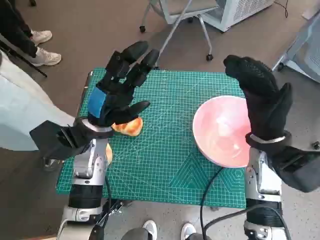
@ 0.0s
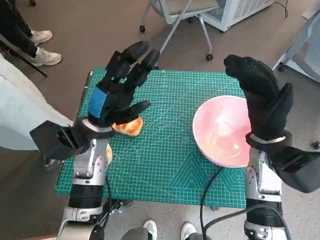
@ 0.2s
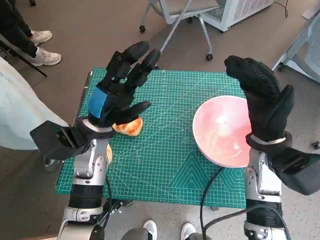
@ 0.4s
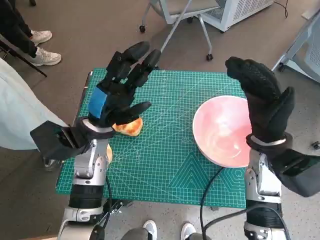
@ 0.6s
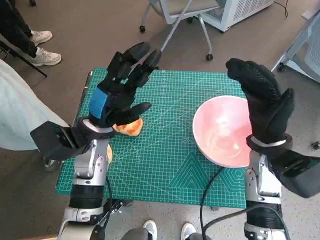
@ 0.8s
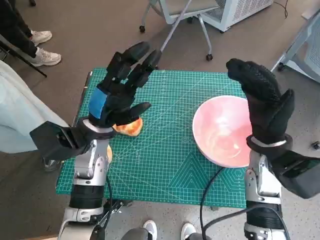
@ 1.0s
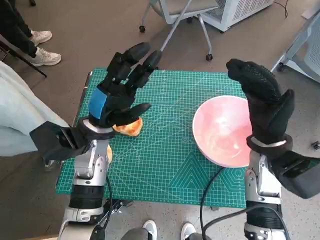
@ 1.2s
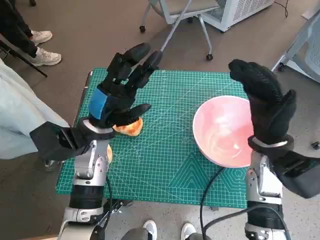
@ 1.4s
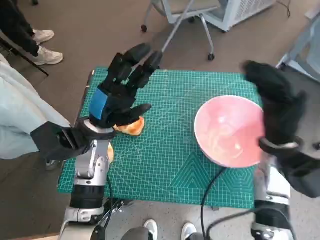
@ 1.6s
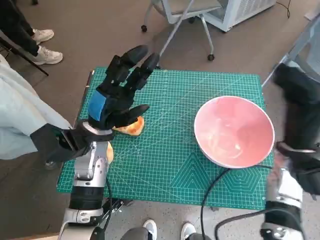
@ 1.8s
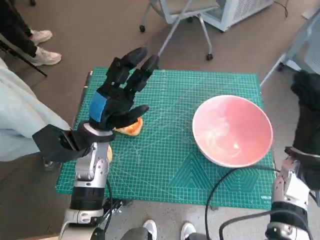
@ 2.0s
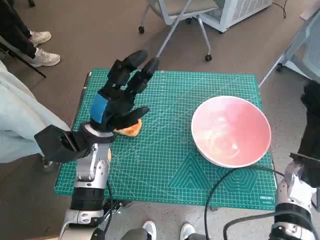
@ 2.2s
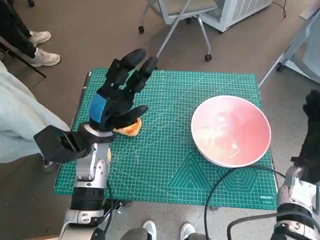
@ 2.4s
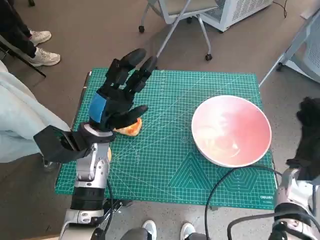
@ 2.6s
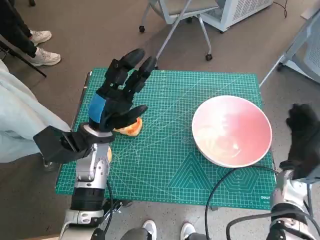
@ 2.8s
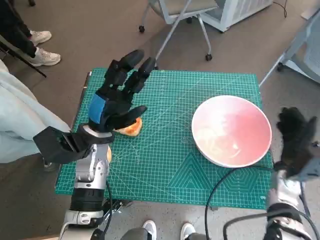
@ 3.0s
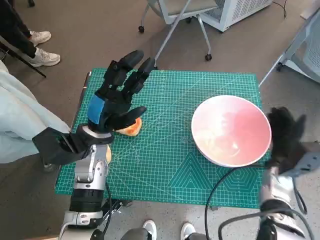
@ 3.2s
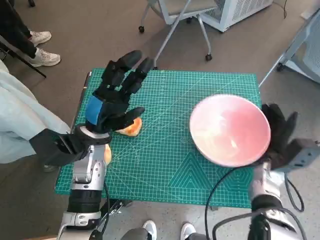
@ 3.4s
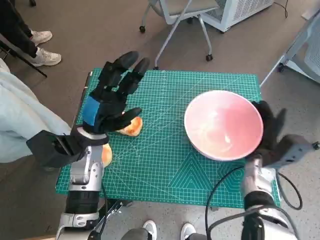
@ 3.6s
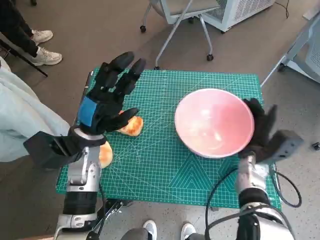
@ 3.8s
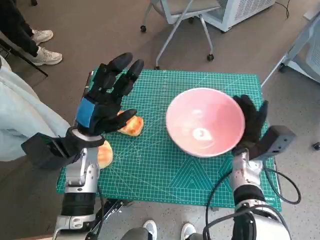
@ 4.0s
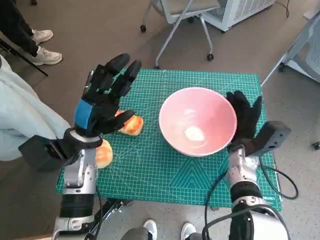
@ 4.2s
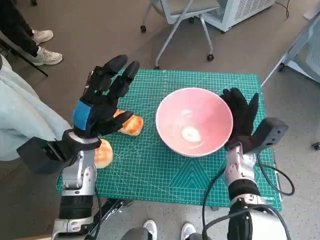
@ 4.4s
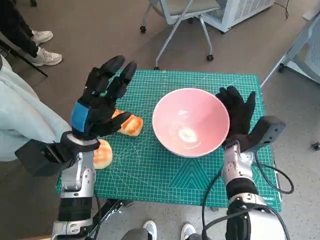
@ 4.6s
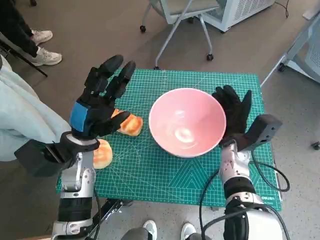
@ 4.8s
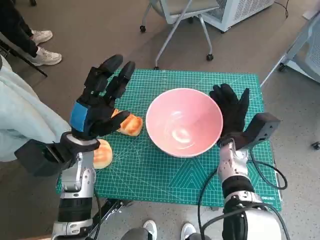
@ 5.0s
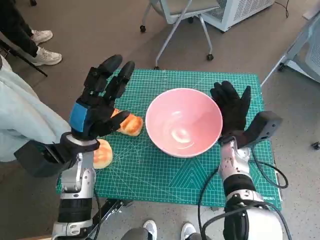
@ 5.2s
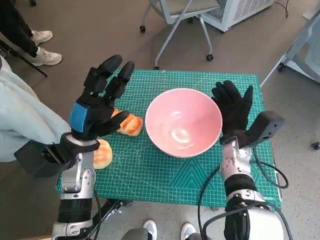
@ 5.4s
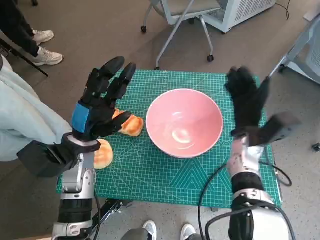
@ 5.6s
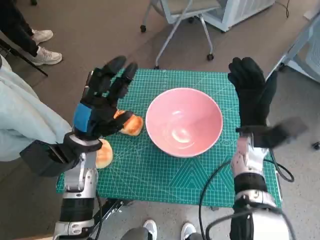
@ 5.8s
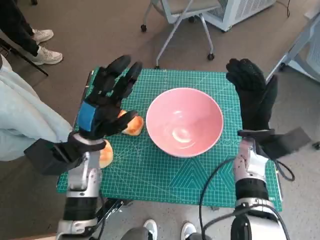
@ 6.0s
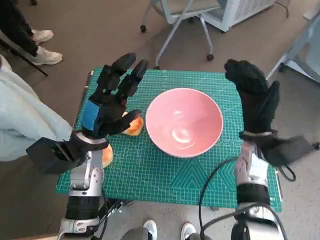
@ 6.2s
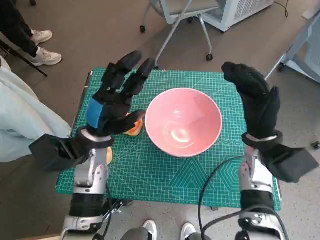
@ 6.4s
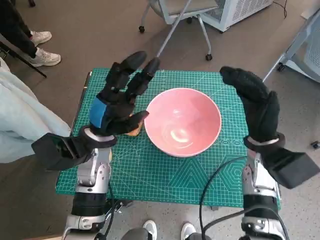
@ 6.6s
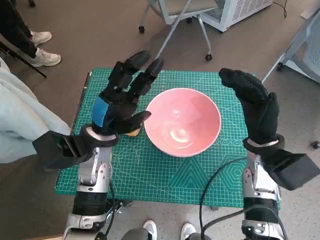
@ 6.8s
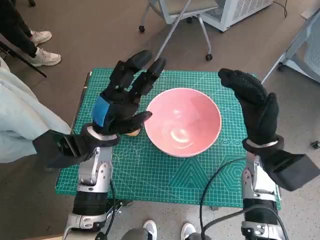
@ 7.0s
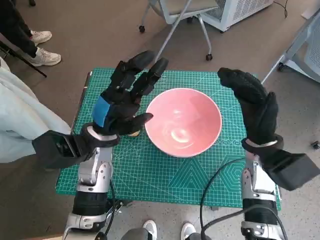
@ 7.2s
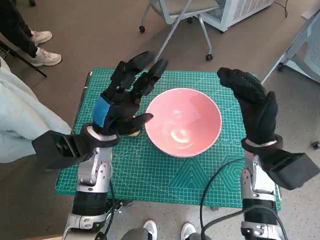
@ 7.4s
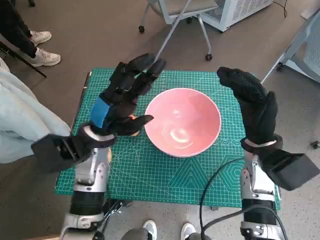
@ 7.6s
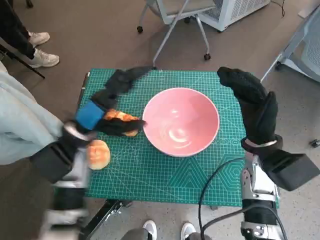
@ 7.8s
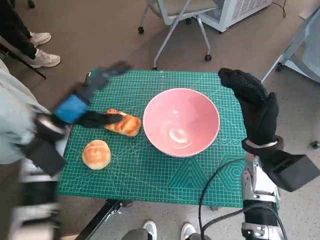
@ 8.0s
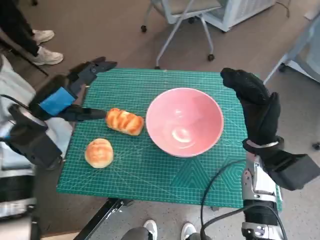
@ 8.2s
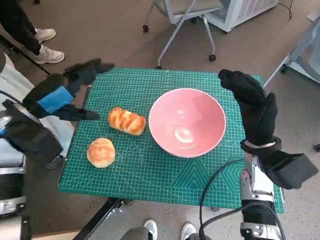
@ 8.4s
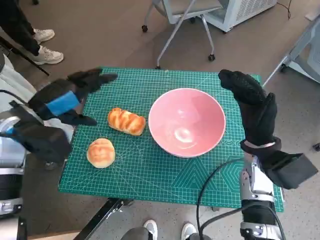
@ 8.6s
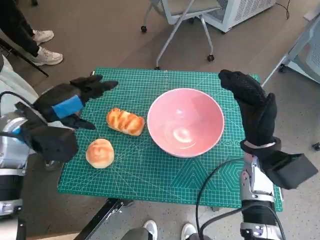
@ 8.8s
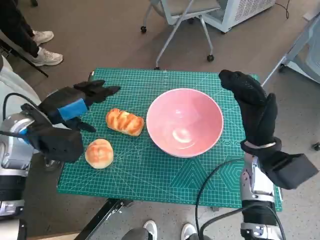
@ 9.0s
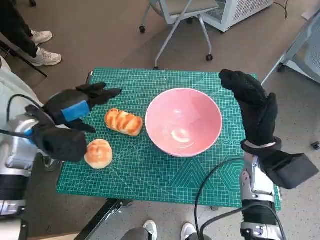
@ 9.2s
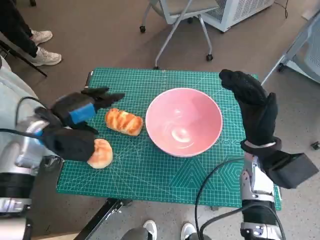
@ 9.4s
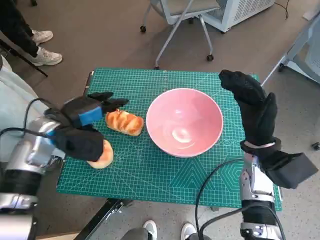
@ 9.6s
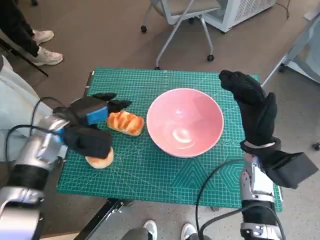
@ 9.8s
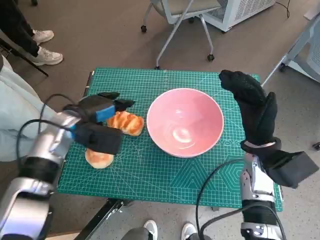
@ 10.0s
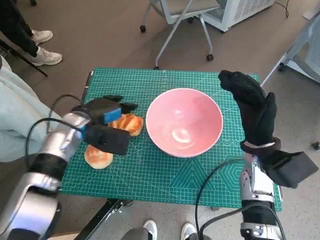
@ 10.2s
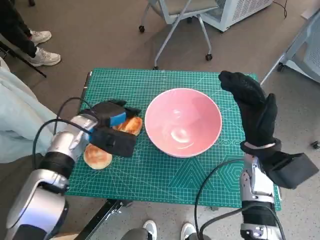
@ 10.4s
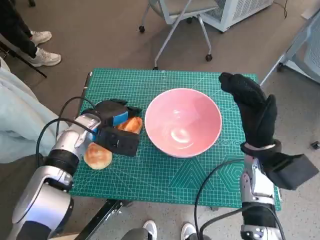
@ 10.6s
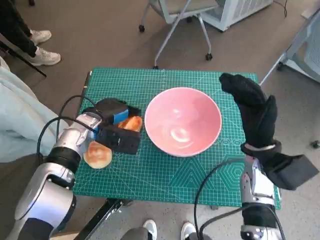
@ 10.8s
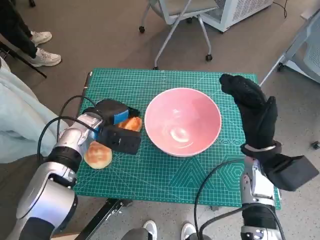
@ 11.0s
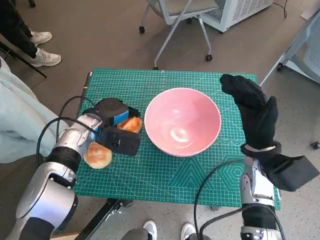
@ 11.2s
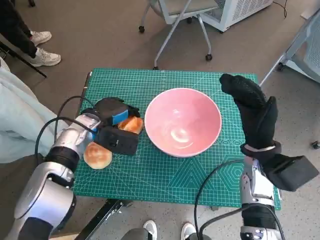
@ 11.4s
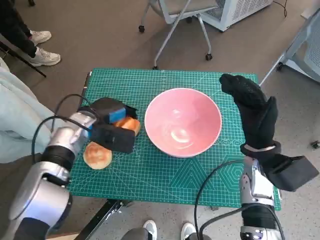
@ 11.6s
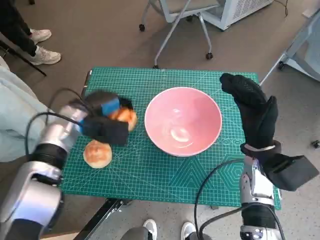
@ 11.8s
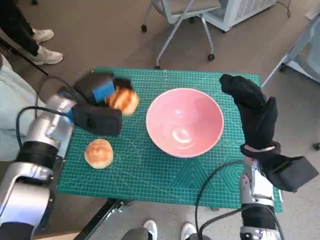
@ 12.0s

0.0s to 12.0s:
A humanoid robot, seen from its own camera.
Task of the whole recording: Push the bowl into the center of the table and put the bread into the bowl.
Step, 0.0s to 5.6s: Move the pink bowl to the center of table with right hand.
Step, 5.8s to 11.4s: Grasp the long bread with left hand.
1.6s to 3.0s: The right hand is displaced downward and to the right by roughly 15 cm.
3.0s to 4.4s: The right hand moves to the left, roughly 10 cm.
4.4s to 6.0s: The right hand travels upward by approximately 5 cm.
7.6s to 9.0s: The left hand shifts about 10 cm to the left.
9.0s to 10.4s: The left hand shifts approximately 10 cm downward and to the right.
10.4s to 12.0s: The left hand moves approximately 5 cm.

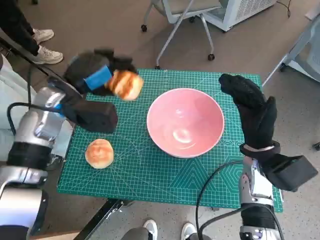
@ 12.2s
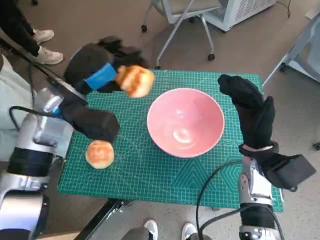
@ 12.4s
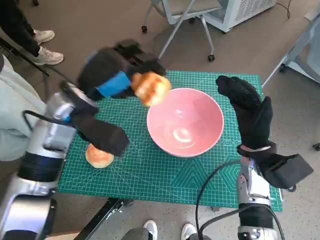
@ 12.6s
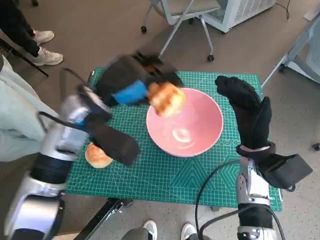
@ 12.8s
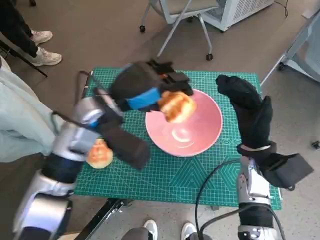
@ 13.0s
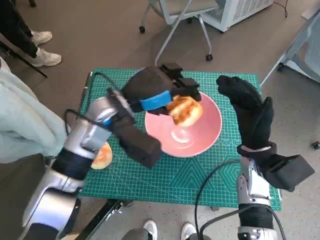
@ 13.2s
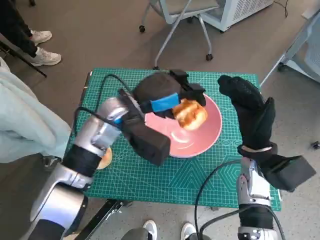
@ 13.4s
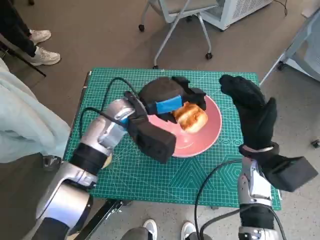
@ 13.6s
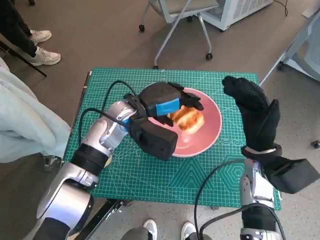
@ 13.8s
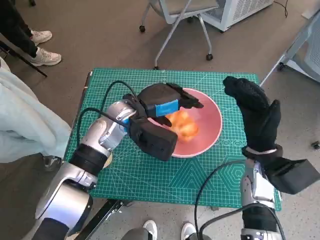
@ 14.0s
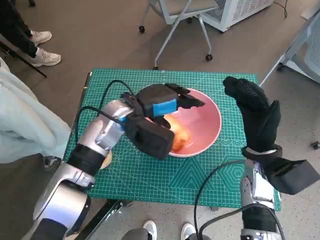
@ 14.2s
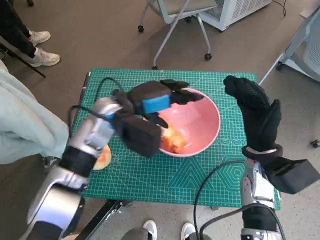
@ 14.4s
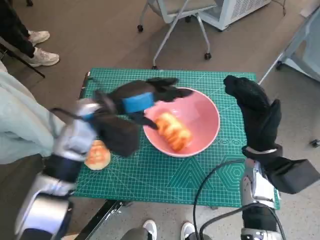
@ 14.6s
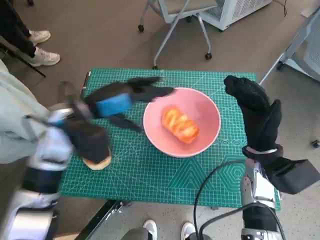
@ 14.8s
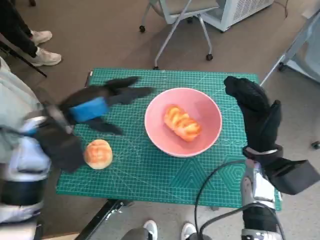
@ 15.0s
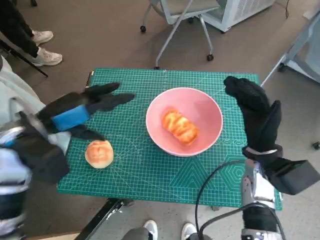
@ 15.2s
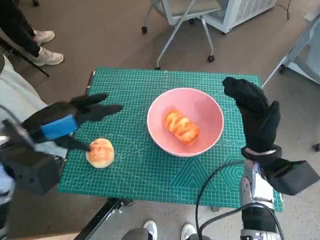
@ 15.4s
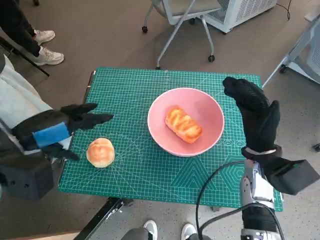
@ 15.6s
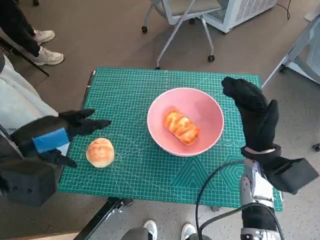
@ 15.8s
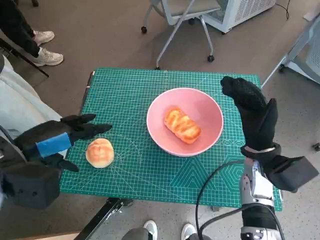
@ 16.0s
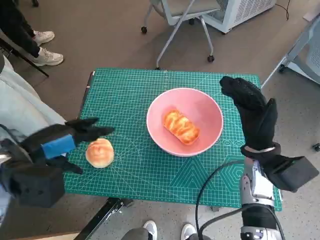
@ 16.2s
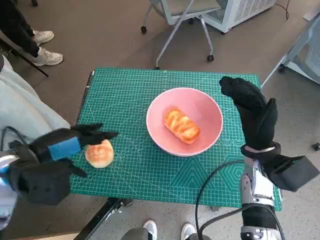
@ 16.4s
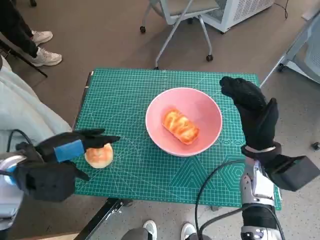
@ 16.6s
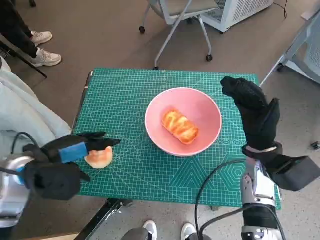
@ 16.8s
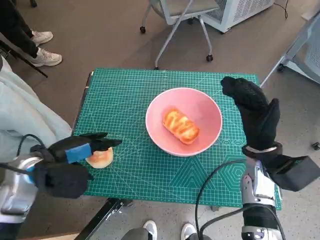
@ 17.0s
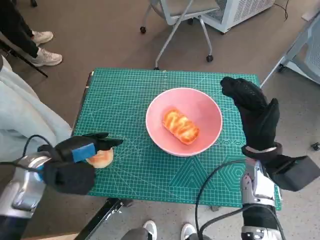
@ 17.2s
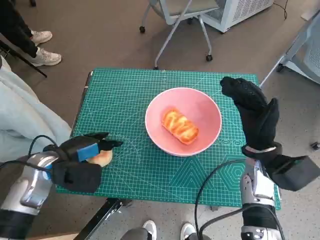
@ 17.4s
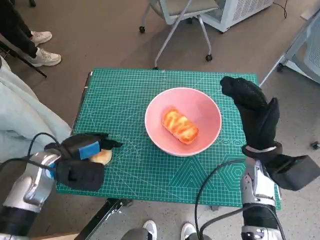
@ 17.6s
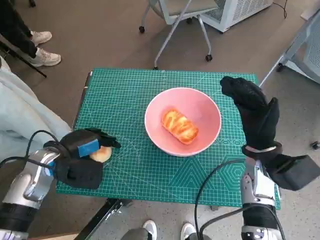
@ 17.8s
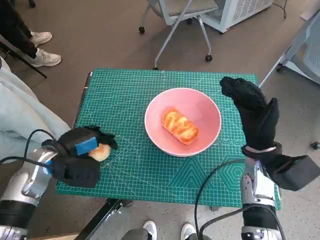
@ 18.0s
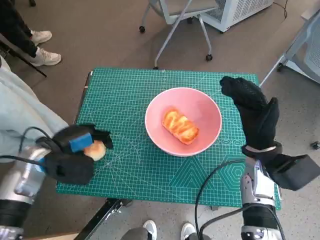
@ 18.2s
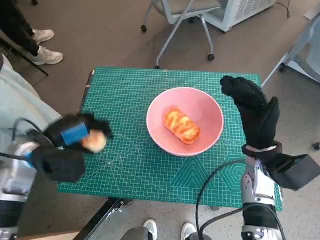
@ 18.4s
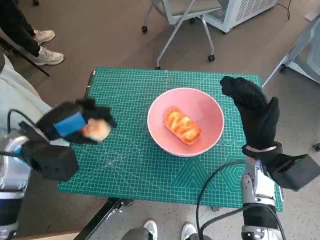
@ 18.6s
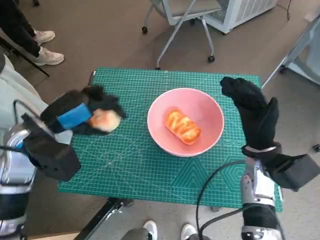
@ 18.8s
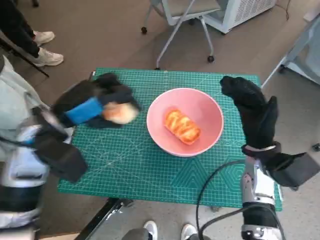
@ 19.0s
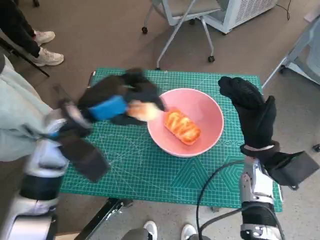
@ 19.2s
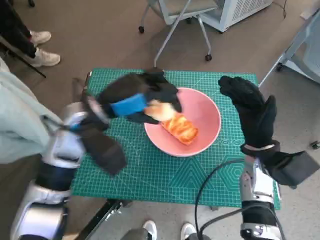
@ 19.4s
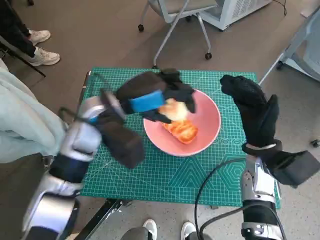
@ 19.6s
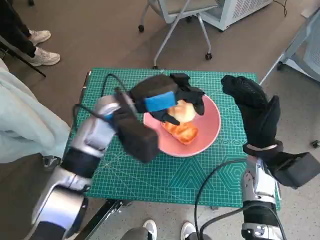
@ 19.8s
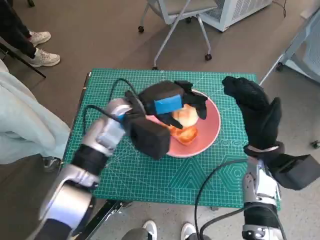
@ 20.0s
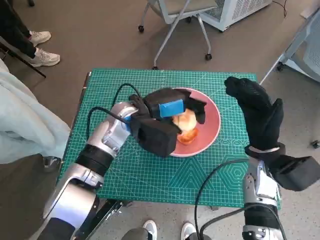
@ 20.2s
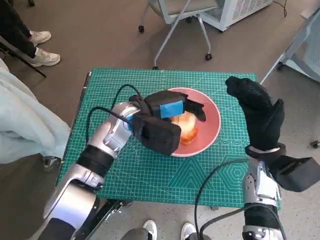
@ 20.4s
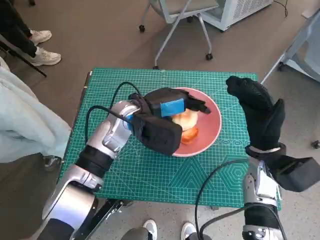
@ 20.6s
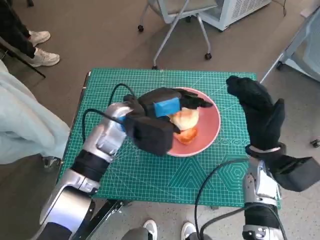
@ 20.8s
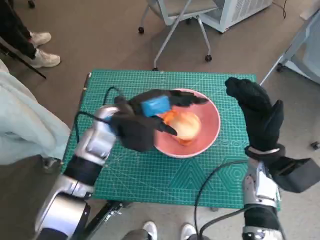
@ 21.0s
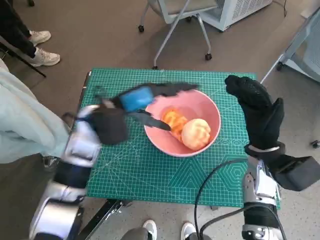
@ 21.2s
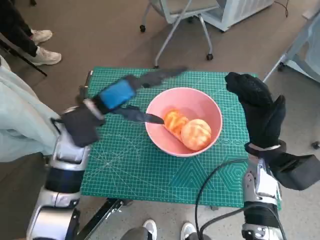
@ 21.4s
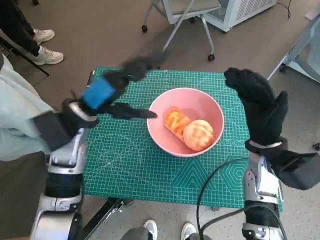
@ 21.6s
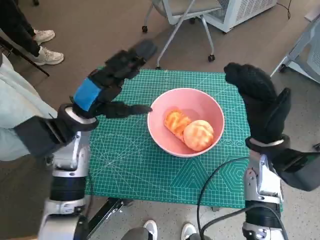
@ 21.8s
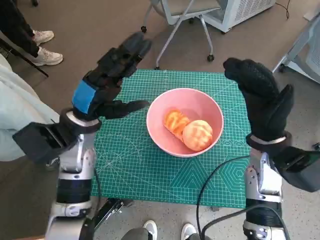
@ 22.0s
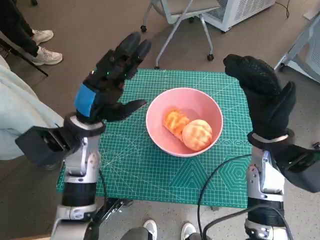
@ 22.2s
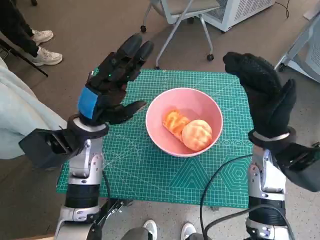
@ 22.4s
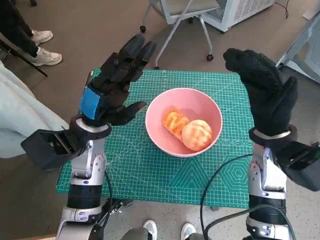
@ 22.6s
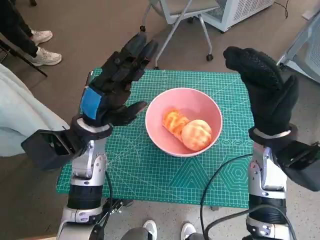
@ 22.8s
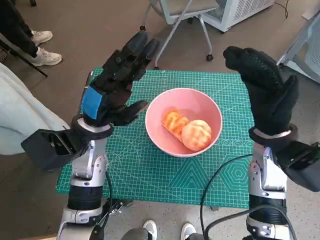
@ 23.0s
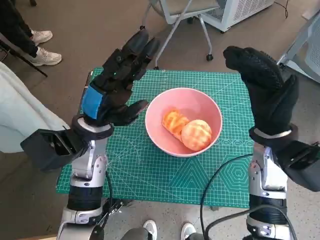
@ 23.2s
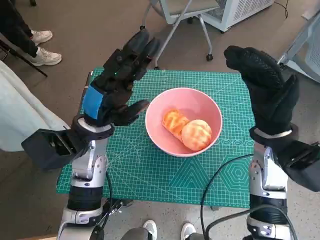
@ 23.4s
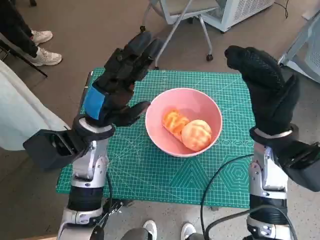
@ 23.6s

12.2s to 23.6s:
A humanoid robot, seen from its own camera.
Task of the whole recording: Push the bowl into the center of the table and put the bread into the bowl.
Step, 12.2s to 15.0s: Place the long bread in pink bowl with left hand.
Step, 15.2s to 17.8s: Grasp the round bread with left hand.
Step, 18.0s to 21.0s: Place the round bread in pink bowl with left hand.
12.2s to 13.6s: The left hand shifts some 10 cm to the right.
13.6s to 15.0s: The left hand travels to the left by about 10 cm.
15.0s to 16.4s: The left hand travels backward by roughly 5 cm.
16.4s to 17.8s: The left hand goes about 10 cm downward.
17.8s to 19.4s: The left hand is displaced upward and to the right by about 15 cm.
19.4s to 20.8s: The left hand heads to the right, covering about 5 cm.
20.8s to 22.2s: The left hand shifts some 10 cm to the left. The right hand shifts about 5 cm upward.
22.2s to 23.6s: The hands stay close to where they were, moving slightly.
